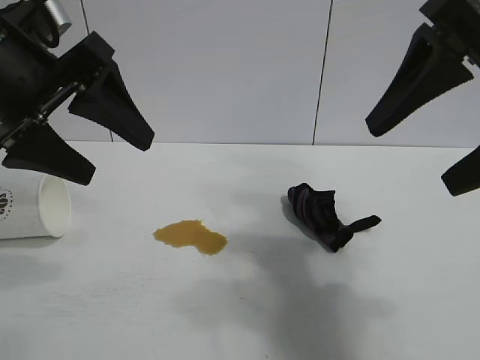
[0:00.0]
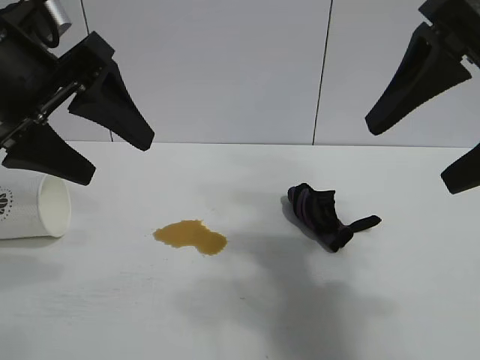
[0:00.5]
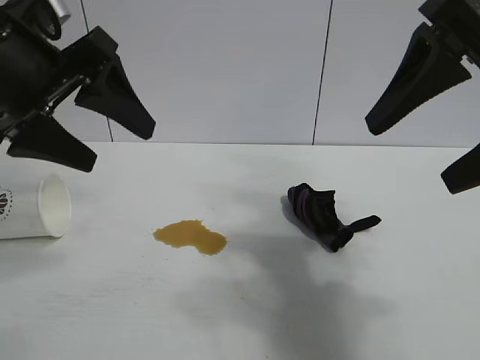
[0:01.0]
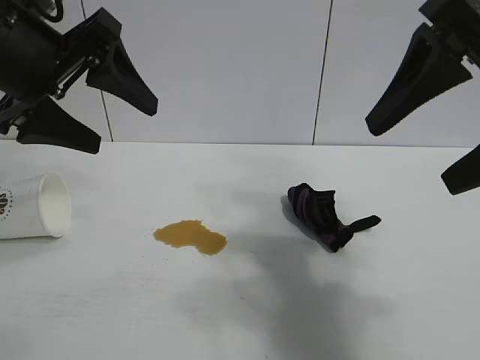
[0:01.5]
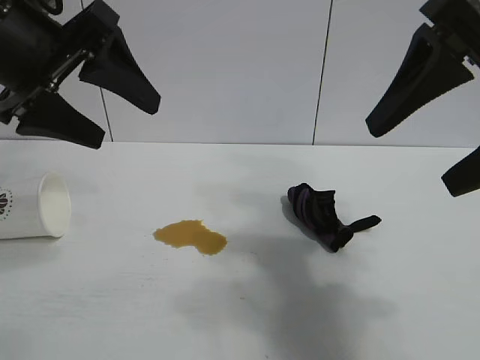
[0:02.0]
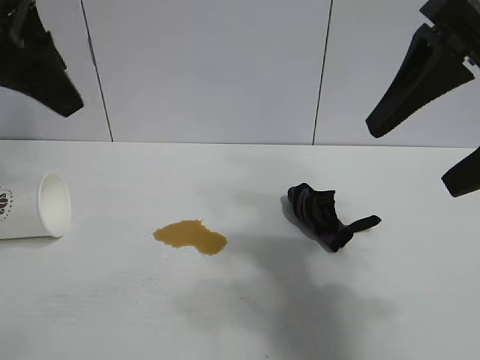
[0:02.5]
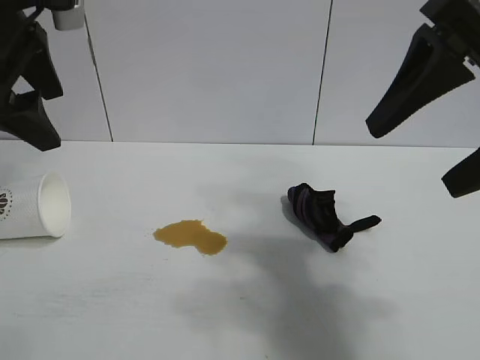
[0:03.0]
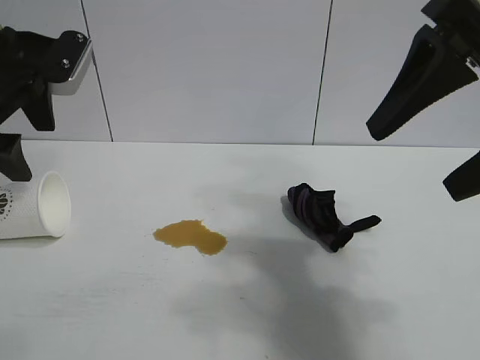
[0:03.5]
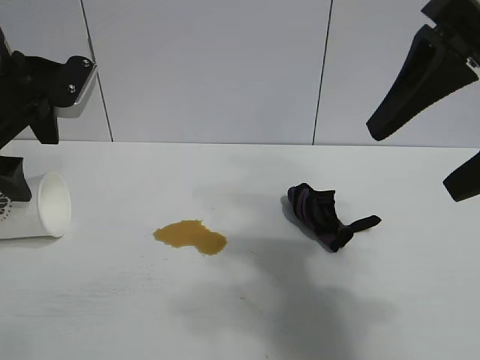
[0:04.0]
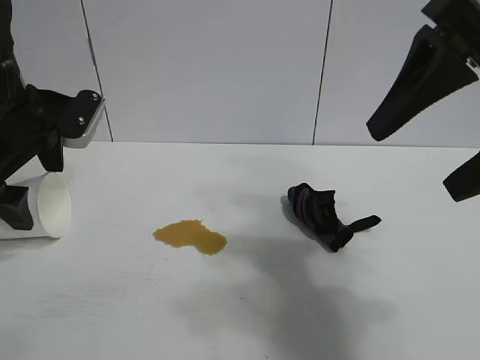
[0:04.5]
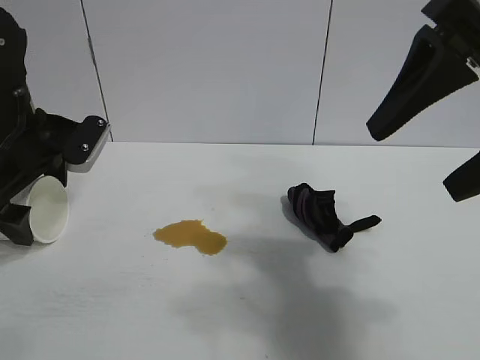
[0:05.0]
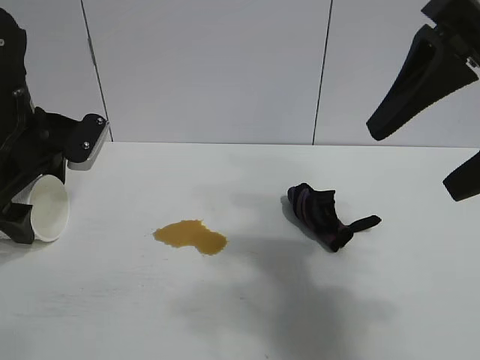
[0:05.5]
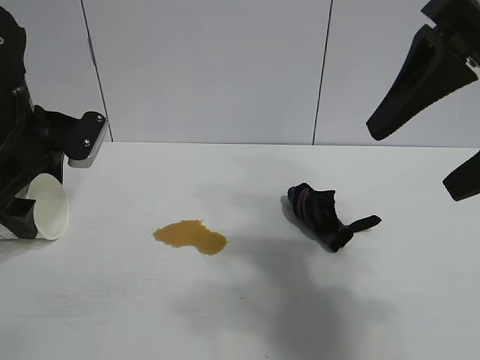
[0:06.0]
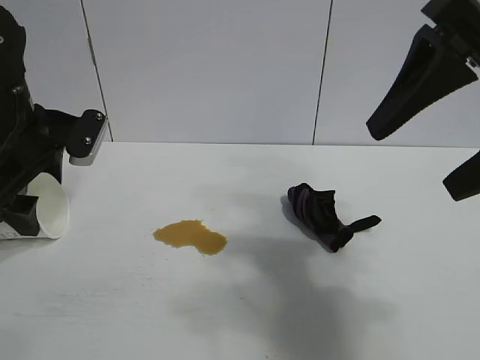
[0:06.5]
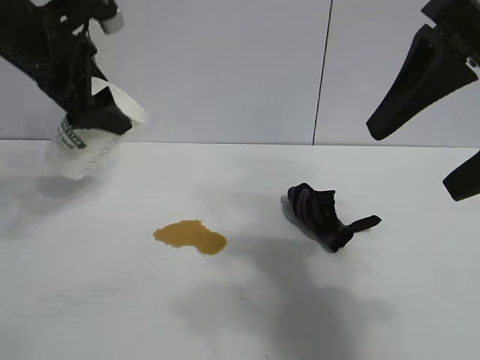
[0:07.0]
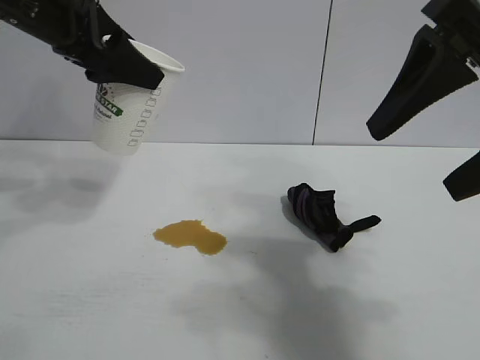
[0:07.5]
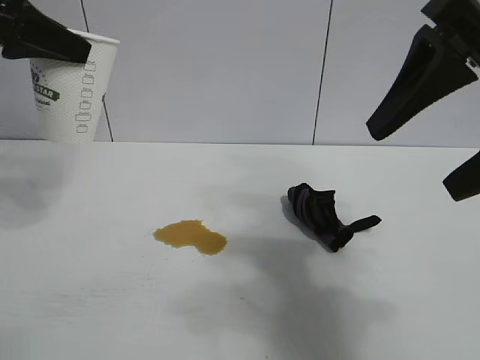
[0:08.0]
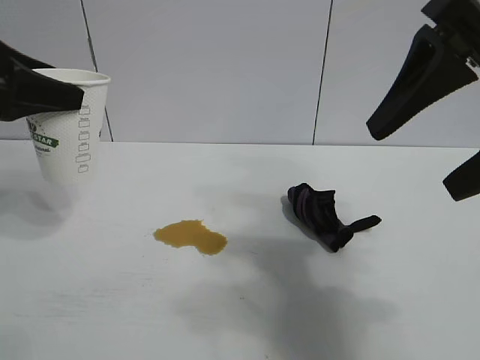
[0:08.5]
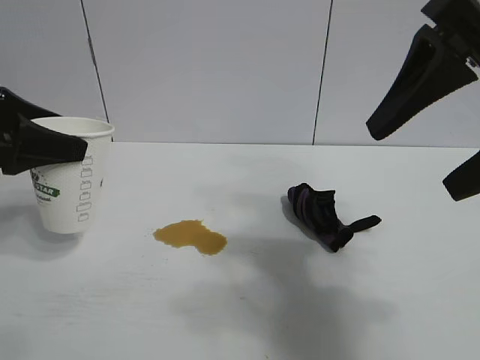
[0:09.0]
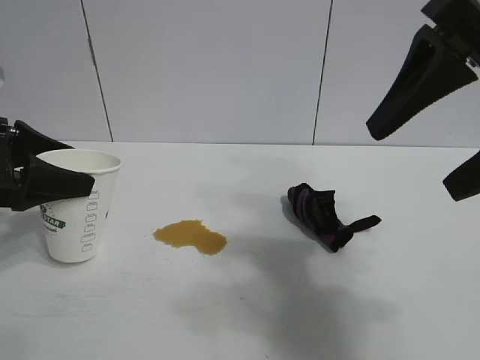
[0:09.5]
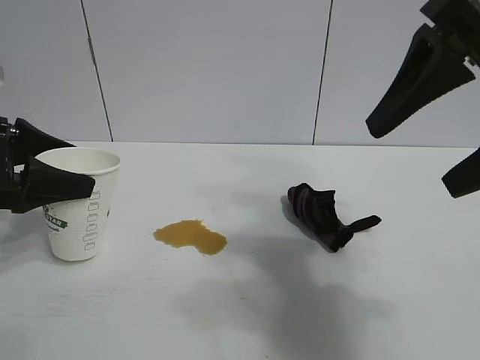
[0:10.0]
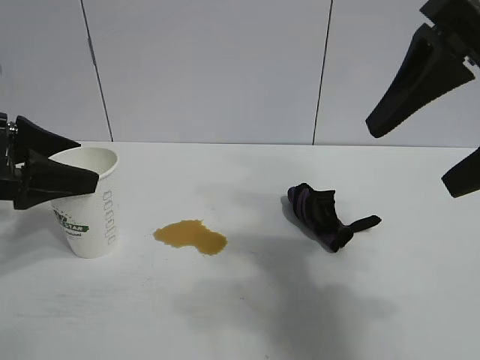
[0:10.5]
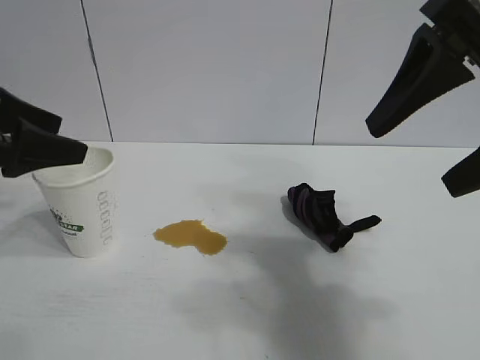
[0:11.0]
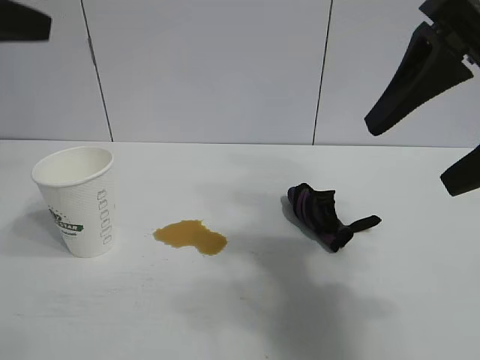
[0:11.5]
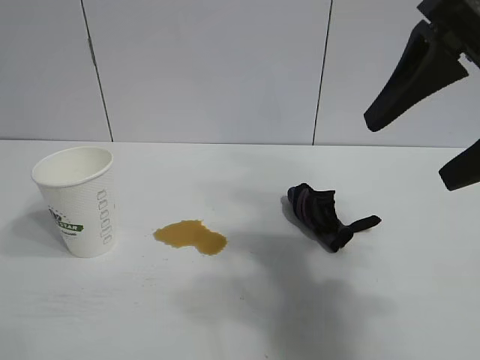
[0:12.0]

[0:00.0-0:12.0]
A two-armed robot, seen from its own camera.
Task of the whole recording: the left gripper pick up the fallen cup and place it upright, the right gripper grasp the black rag and wipe the stain on the table, the right gripper put the black rag back in its original position.
Step, 0:01.0 to 0:06.5: Grasp the paper cup with left gripper.
Step, 0:07.0 to 0:10.0: Stand the paper cup upright with left gripper.

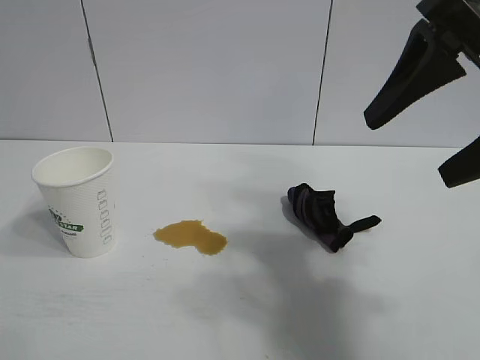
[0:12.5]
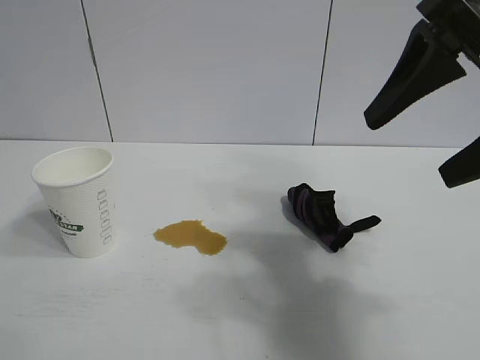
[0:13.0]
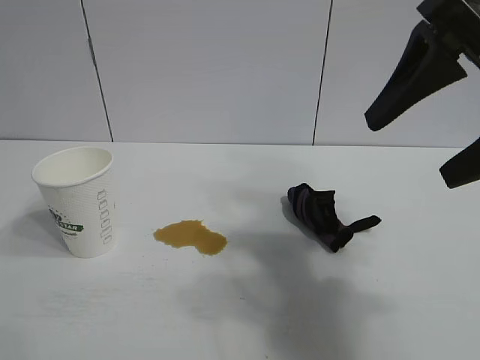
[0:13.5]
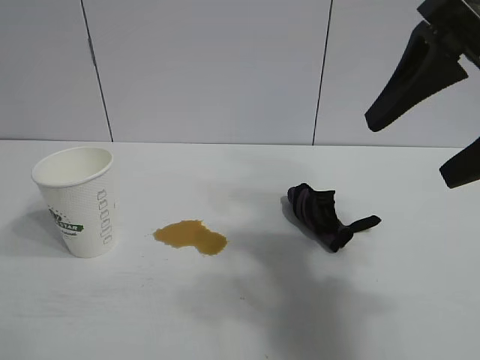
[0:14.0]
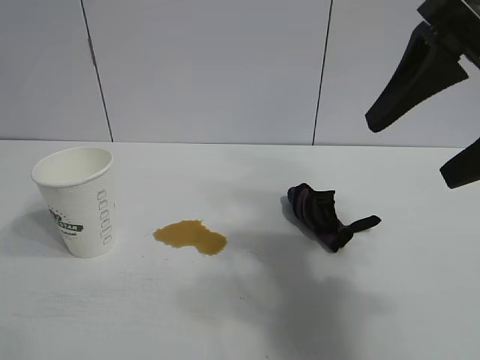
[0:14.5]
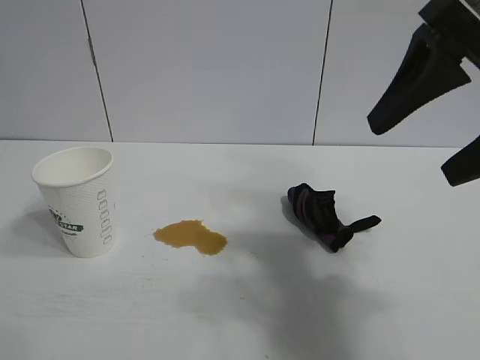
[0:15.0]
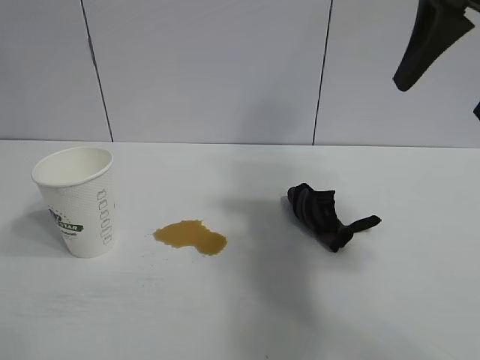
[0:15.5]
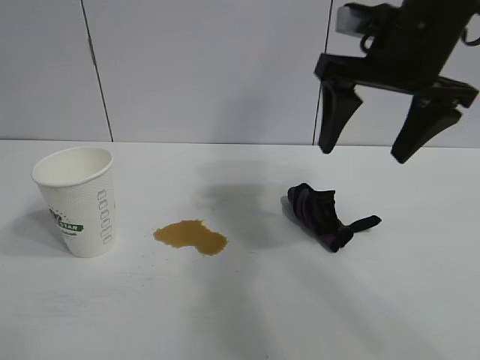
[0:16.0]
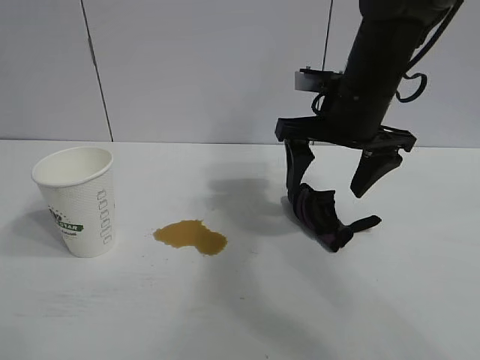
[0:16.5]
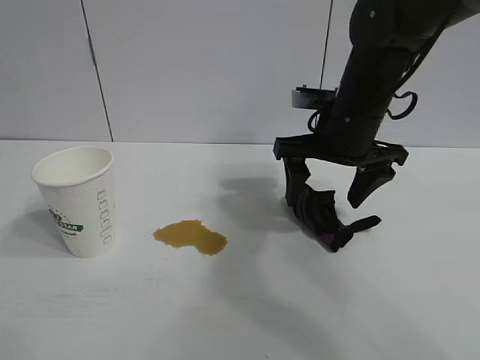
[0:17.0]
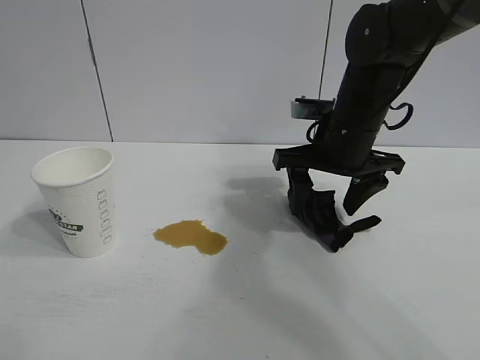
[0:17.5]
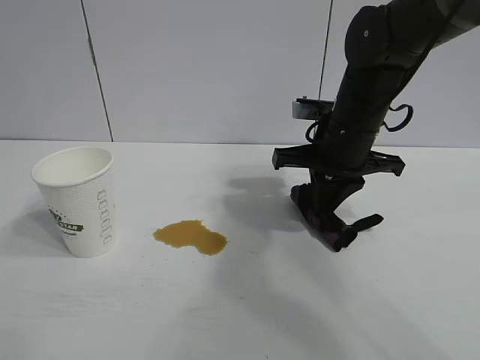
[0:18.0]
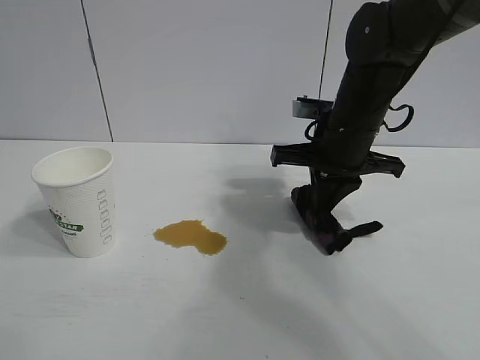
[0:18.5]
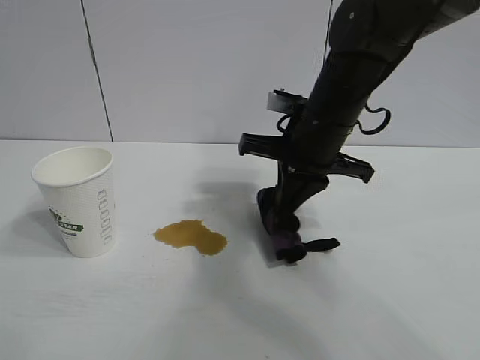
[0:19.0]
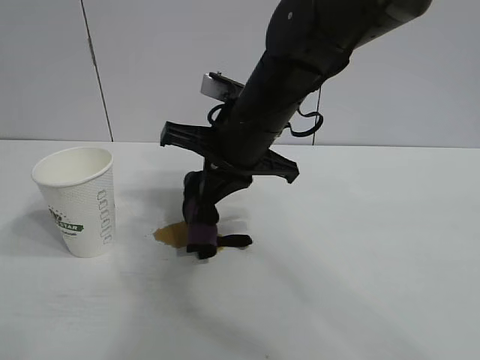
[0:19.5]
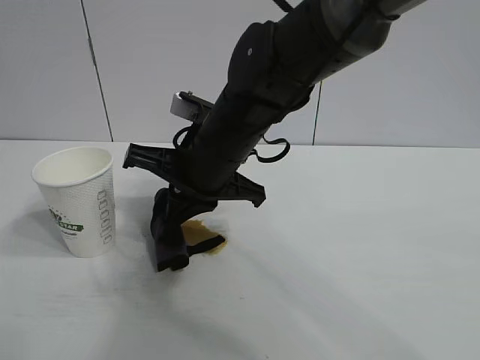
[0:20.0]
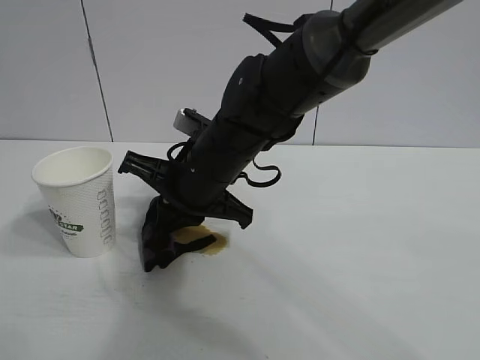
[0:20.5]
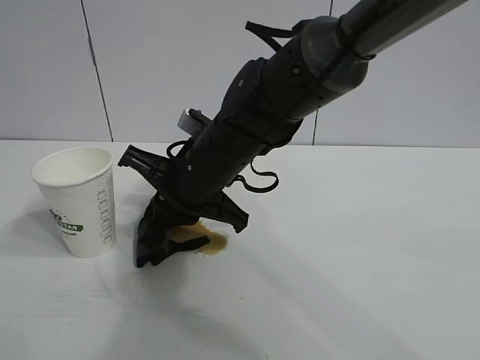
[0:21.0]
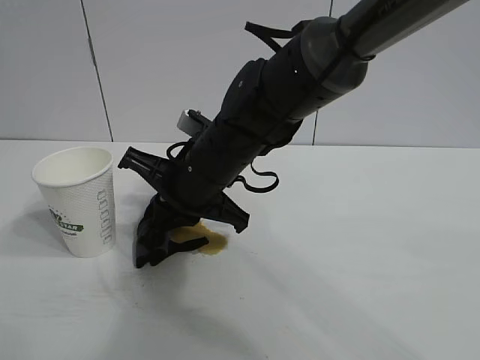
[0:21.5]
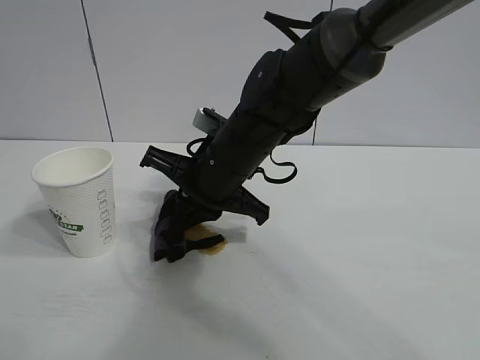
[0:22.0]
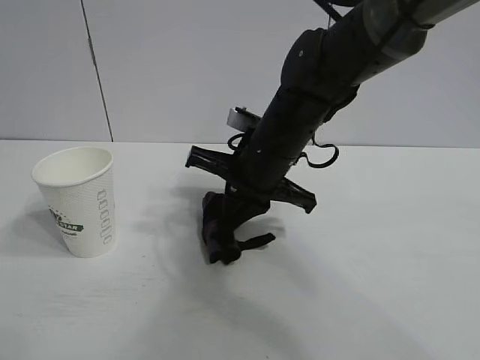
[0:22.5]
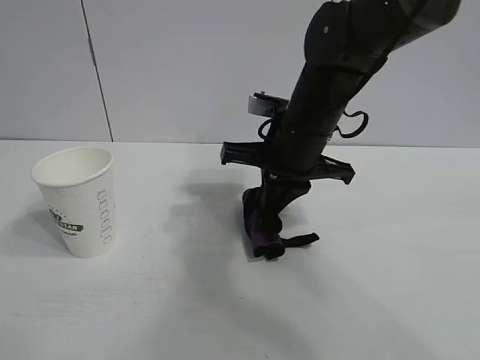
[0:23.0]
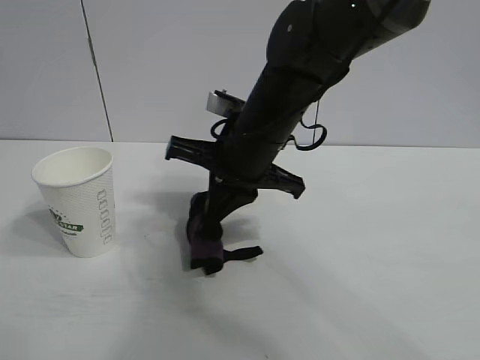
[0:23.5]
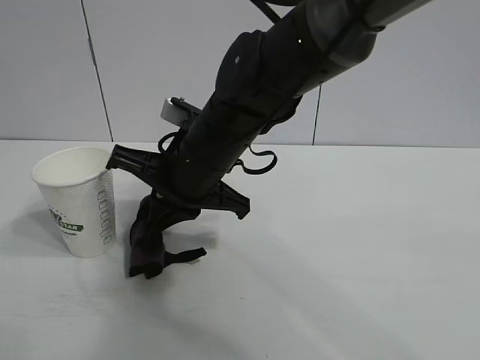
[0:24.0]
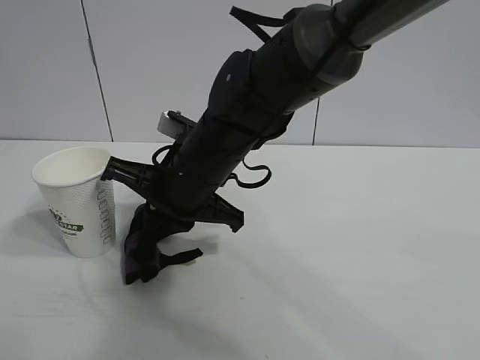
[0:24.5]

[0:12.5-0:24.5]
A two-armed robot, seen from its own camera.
Task of the whole recording: the left gripper pick up the fallen cup and place it upright, the right gripper grasp the black rag and wipe the stain on the table, the right gripper put the black rag back in its original position.
Step, 0:12.5 to 0:18.0: Grasp the rag with right gripper.

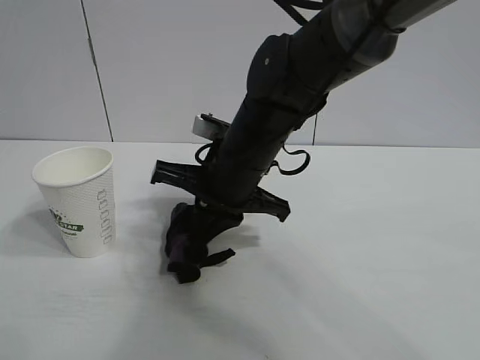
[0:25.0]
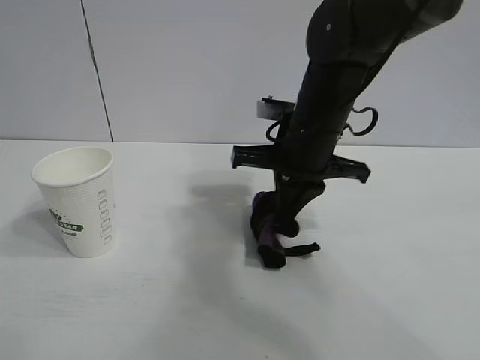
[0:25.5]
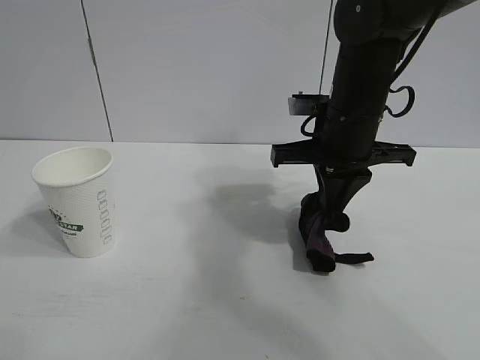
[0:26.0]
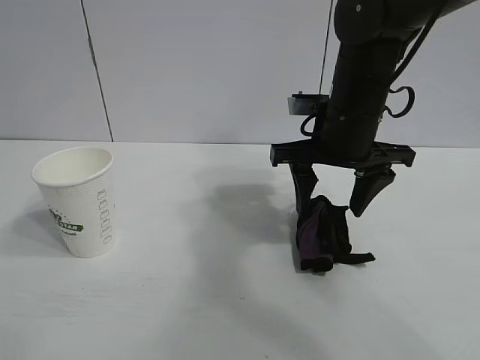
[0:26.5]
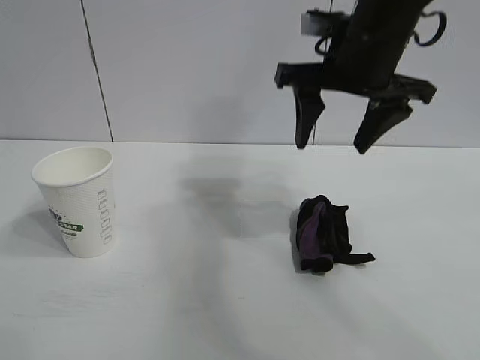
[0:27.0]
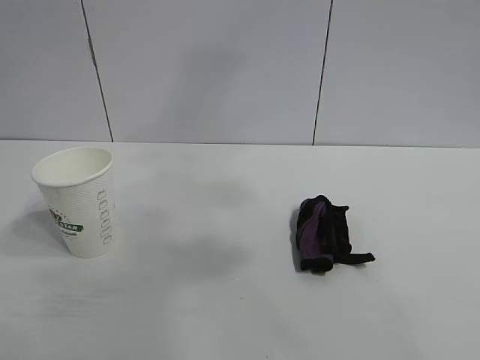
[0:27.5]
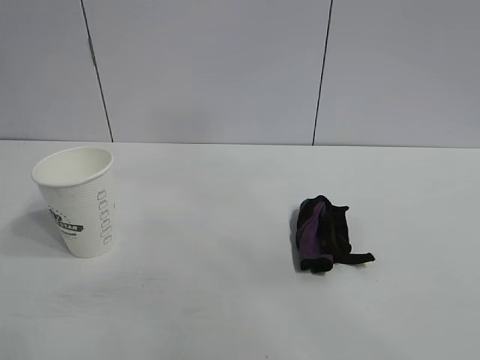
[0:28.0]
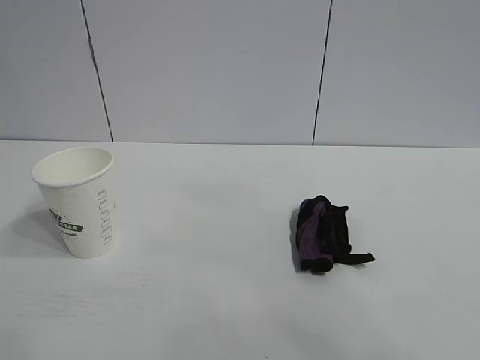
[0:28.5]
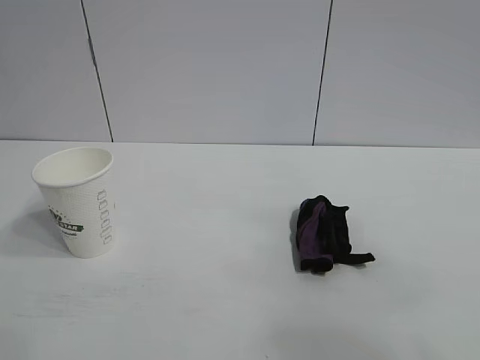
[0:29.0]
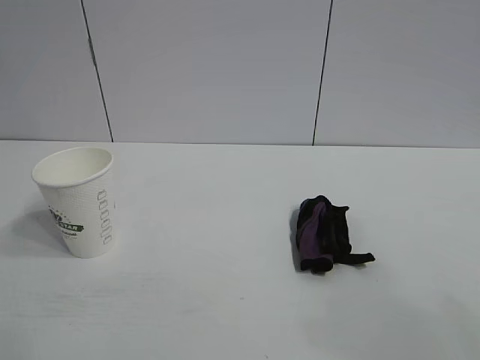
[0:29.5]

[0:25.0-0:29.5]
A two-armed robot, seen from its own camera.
Task of the whole recording: the left gripper pick up the fallen cup and place it upright, the right gripper grasp the black rag and wipe the stain on the table, the right gripper put the black rag back in its original position.
Step, 0:25.5 to 0:26.0: Place the rag on the table with right gripper.
